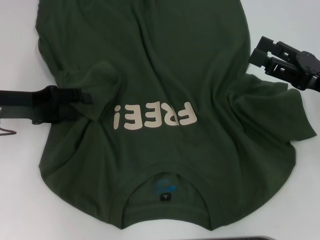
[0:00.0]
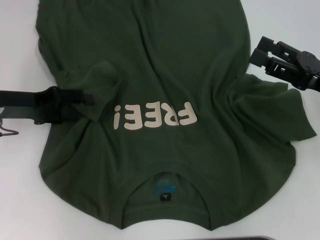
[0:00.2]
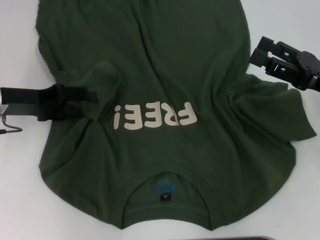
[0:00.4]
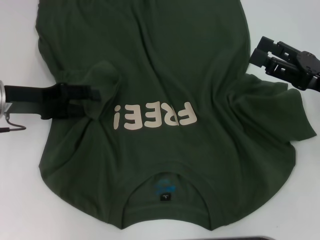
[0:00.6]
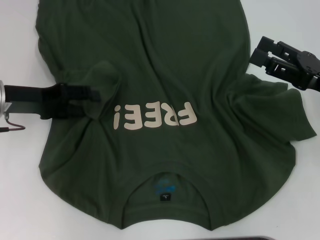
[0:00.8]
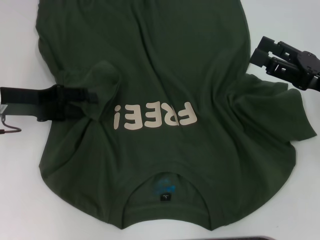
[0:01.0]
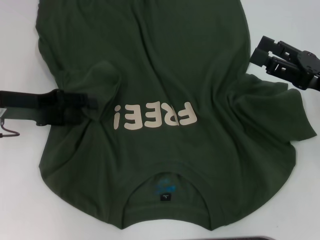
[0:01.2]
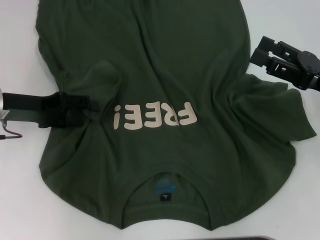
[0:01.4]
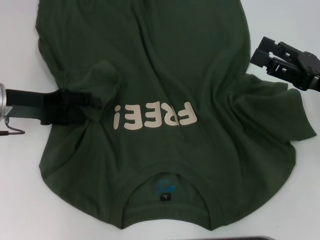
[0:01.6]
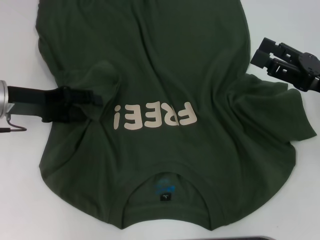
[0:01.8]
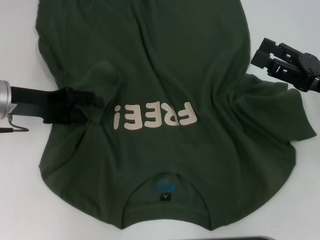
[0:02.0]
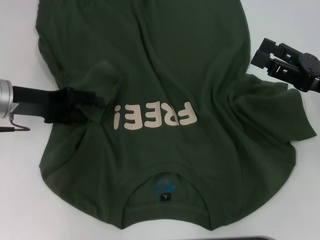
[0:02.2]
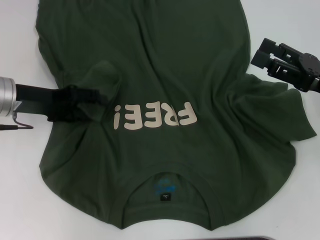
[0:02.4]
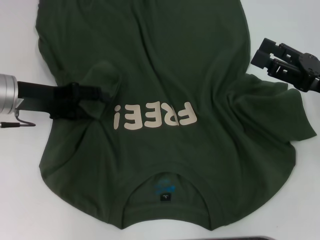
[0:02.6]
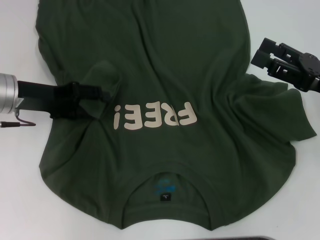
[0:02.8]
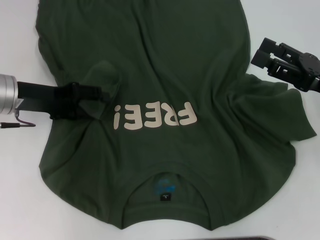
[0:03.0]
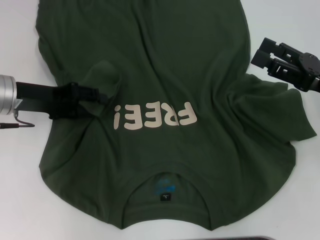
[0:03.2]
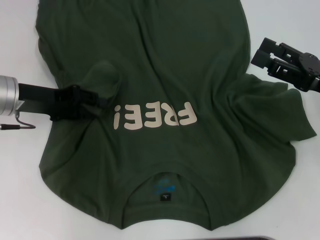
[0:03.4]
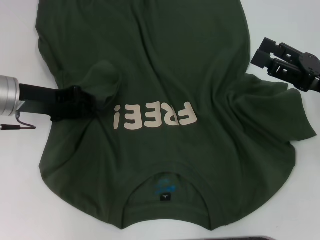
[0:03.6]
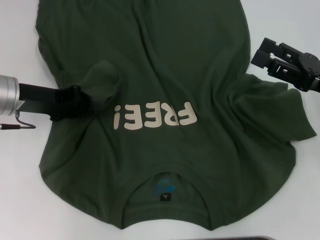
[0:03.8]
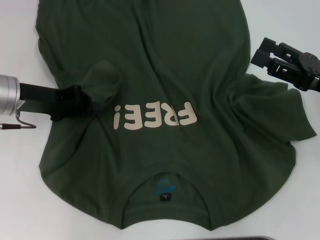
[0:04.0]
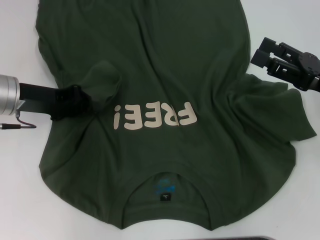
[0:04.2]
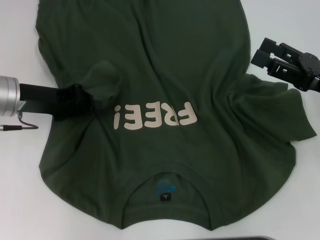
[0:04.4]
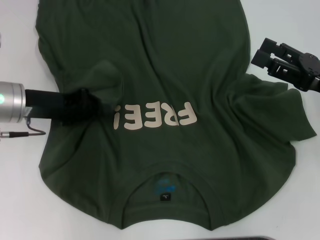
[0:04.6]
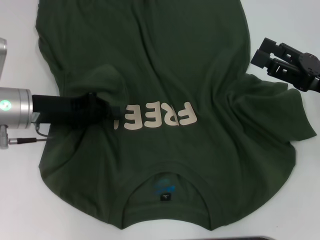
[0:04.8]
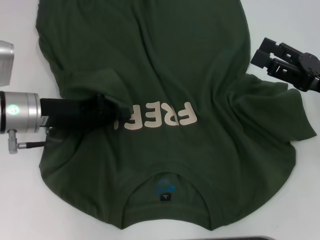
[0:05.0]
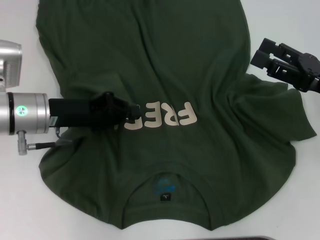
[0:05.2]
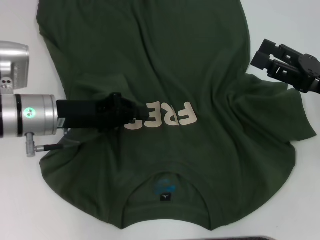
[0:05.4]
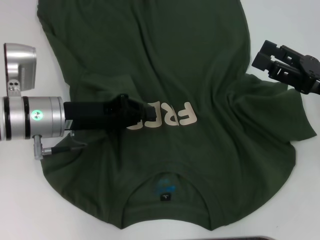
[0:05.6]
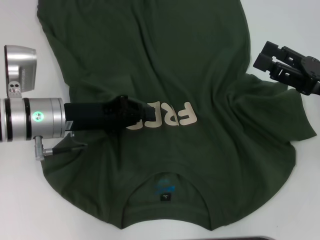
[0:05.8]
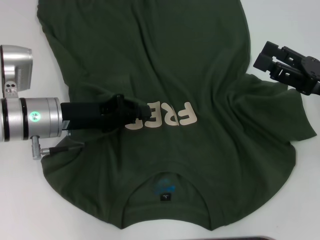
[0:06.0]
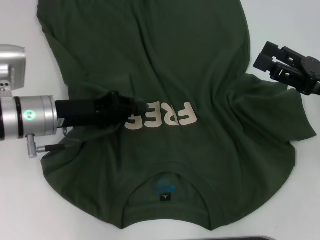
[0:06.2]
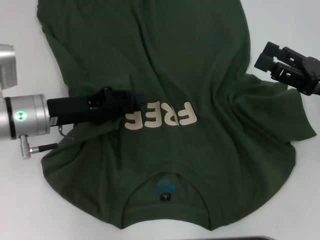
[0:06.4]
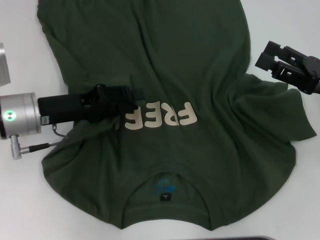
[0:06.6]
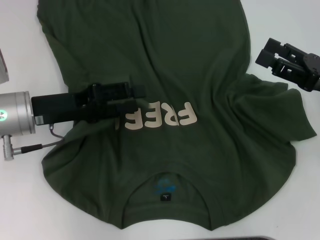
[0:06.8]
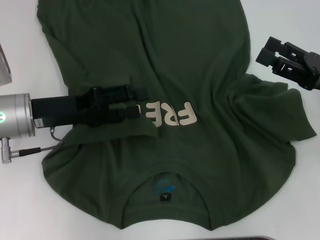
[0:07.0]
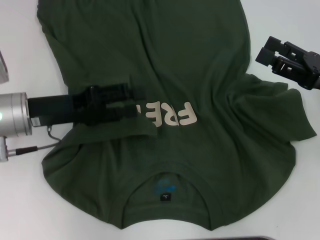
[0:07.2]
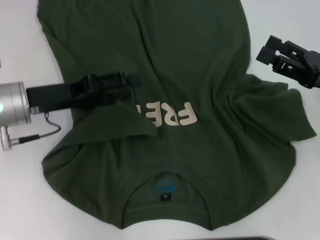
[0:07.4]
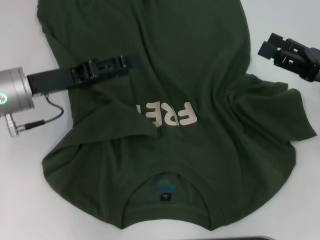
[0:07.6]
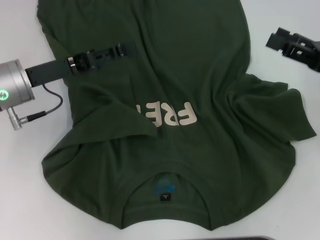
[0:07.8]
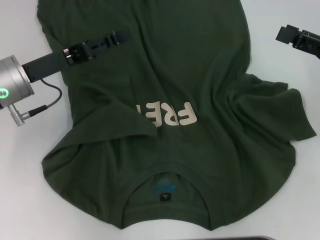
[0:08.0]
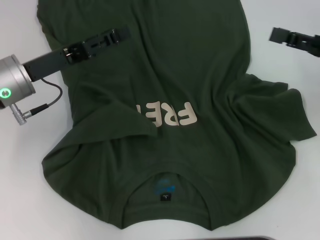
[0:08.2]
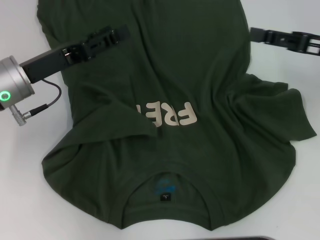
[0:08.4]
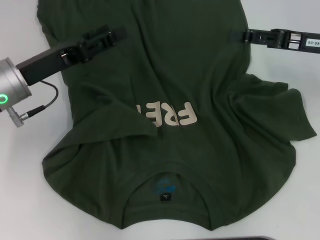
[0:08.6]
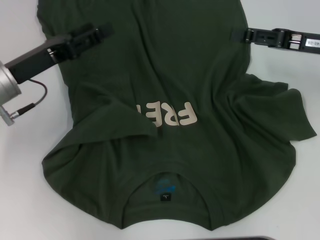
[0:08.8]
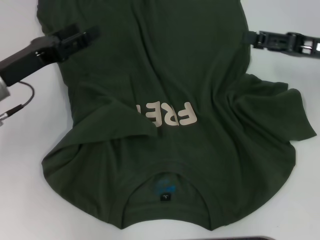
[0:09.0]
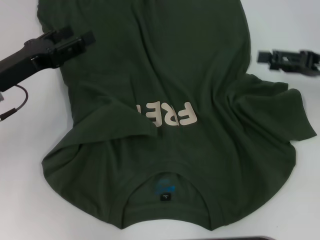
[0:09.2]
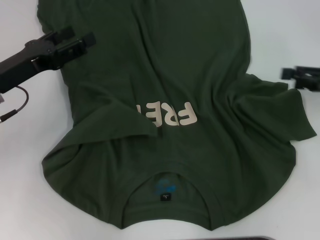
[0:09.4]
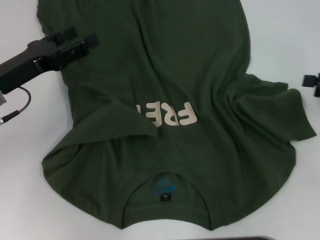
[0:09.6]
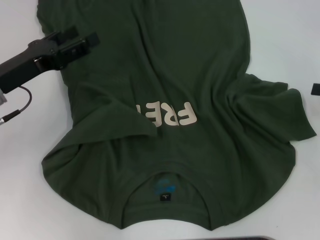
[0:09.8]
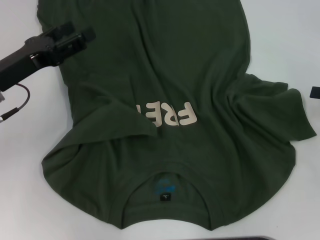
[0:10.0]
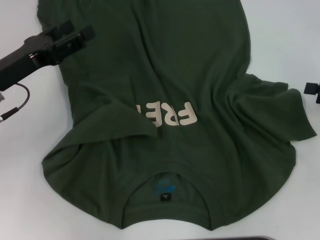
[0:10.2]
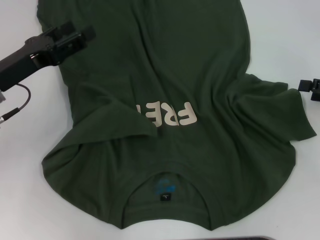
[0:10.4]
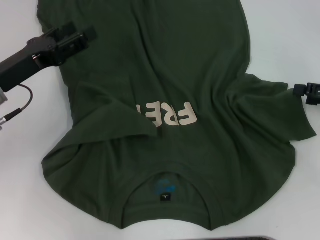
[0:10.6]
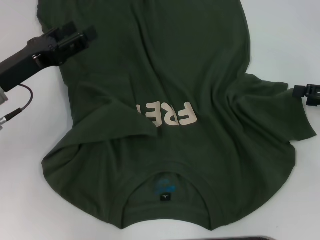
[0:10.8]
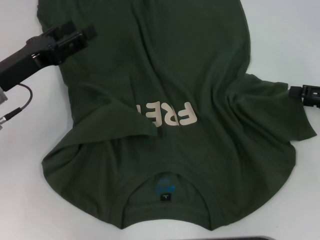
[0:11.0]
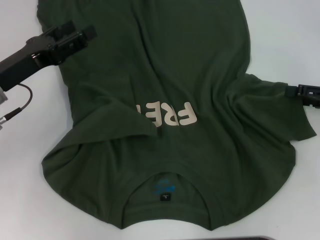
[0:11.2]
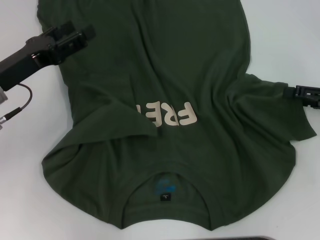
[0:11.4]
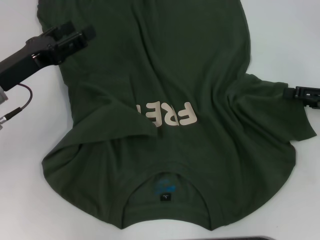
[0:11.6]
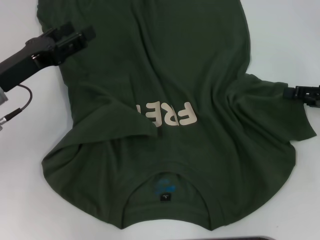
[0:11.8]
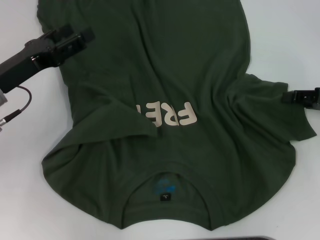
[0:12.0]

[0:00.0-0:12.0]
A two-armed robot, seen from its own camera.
Step, 0:00.0 to 0:07.4: Fold the bottom left sleeve with your left hand.
0:00.0 to 0:03.0: The grippers stay close to where they were, moving slightly.
0:03.0 to 0:04.4: The left gripper closes.
0:04.4 to 0:06.0: The left gripper is displaced to the right by roughly 5 cm.
0:06.0 to 0:07.6: The left gripper opens its fingers.
0:07.6 to 0:09.0: The right gripper heads forward, covering approximately 5 cm.
0:09.0 to 0:10.4: The right gripper is displaced to the right and backward by about 10 cm.
0:10.4 to 0:12.0: The right gripper closes up.

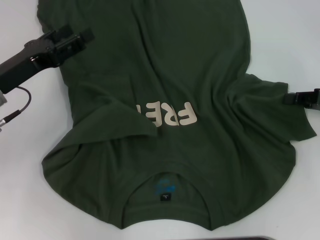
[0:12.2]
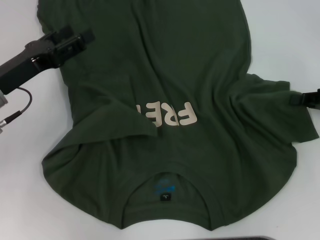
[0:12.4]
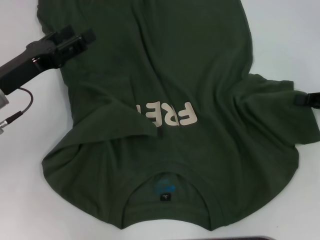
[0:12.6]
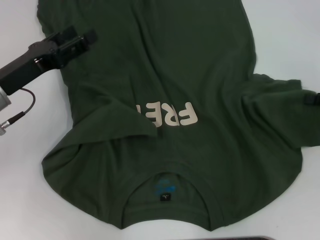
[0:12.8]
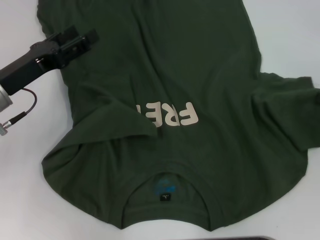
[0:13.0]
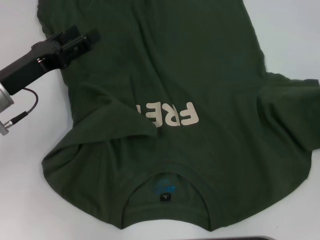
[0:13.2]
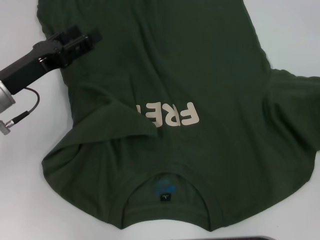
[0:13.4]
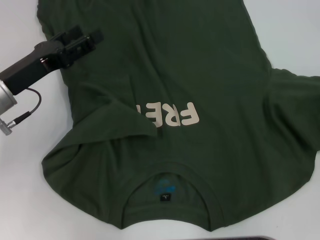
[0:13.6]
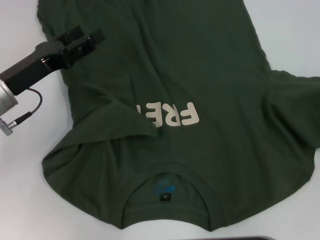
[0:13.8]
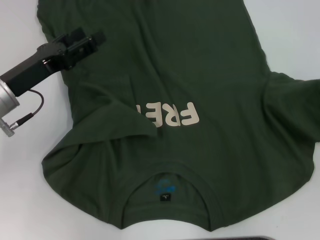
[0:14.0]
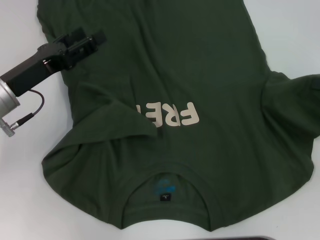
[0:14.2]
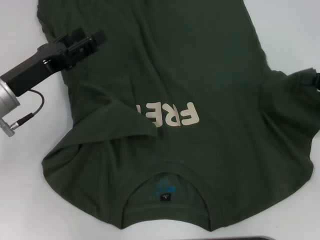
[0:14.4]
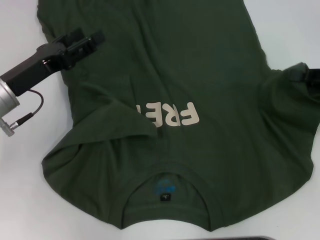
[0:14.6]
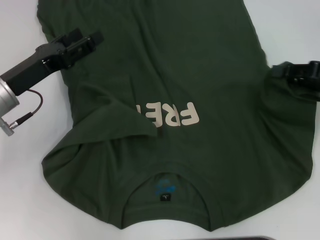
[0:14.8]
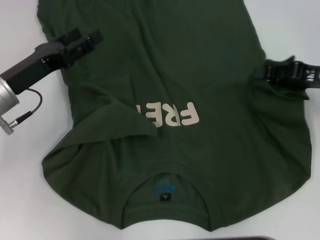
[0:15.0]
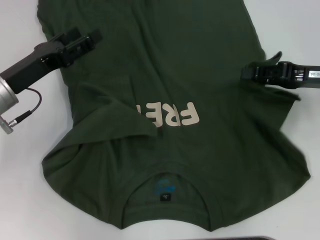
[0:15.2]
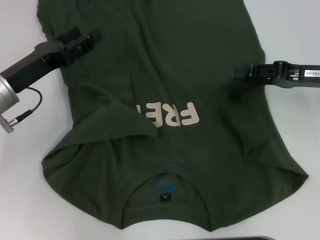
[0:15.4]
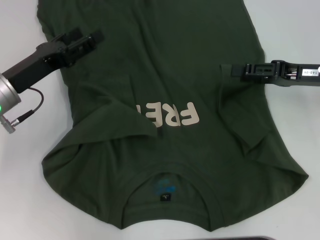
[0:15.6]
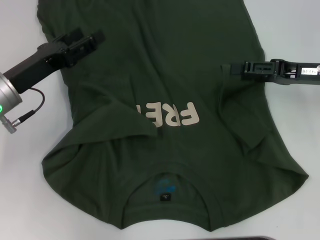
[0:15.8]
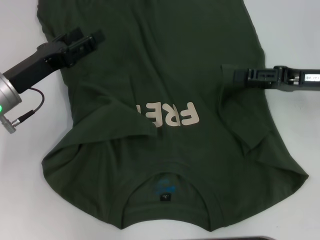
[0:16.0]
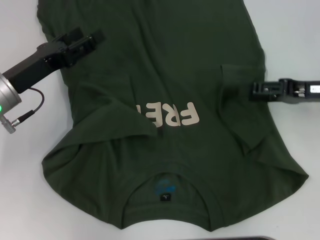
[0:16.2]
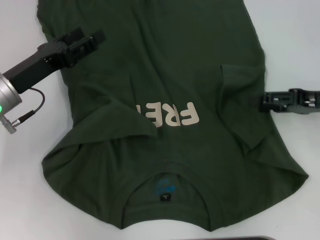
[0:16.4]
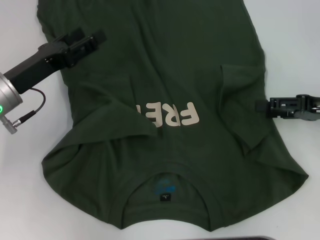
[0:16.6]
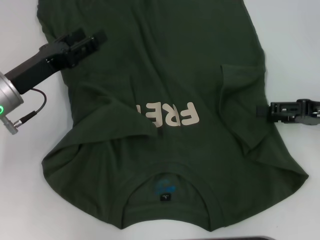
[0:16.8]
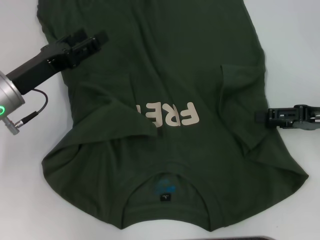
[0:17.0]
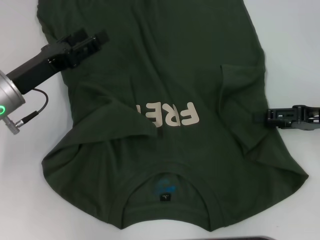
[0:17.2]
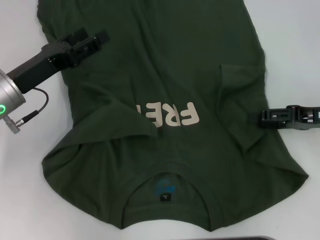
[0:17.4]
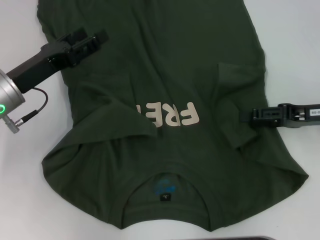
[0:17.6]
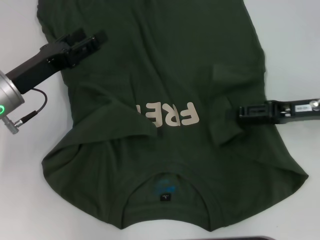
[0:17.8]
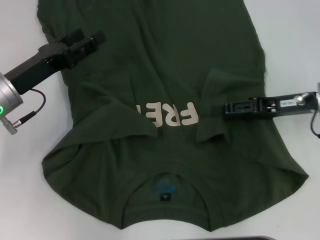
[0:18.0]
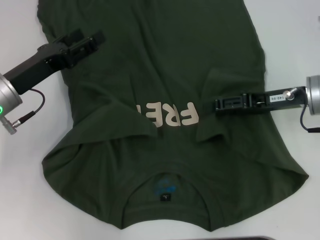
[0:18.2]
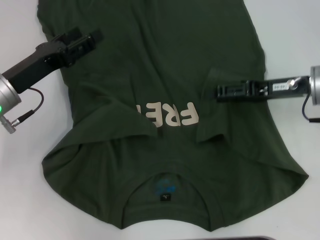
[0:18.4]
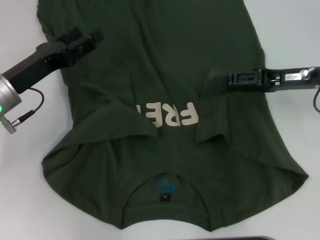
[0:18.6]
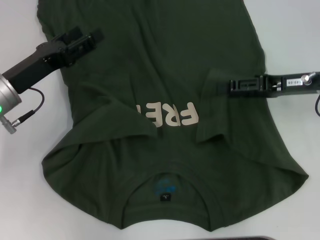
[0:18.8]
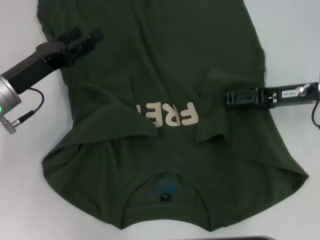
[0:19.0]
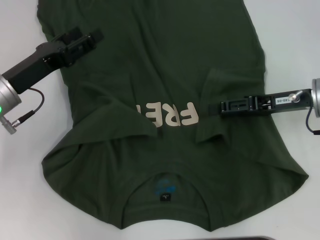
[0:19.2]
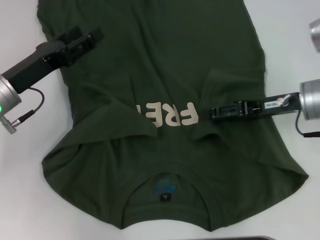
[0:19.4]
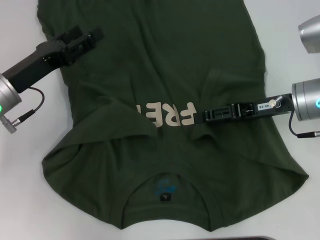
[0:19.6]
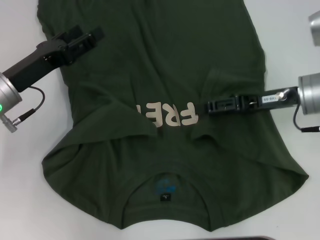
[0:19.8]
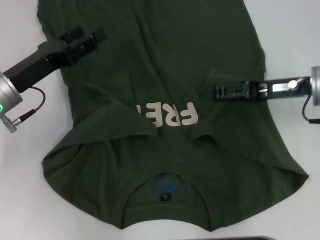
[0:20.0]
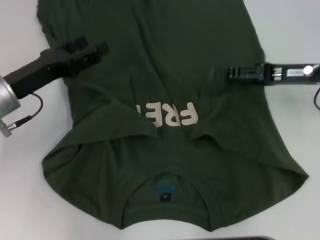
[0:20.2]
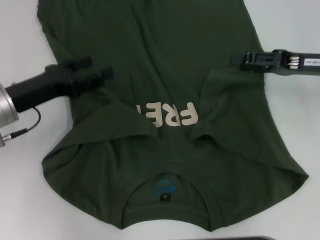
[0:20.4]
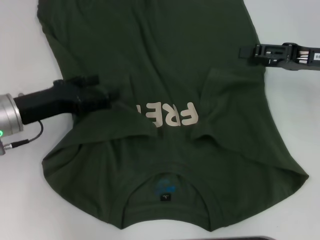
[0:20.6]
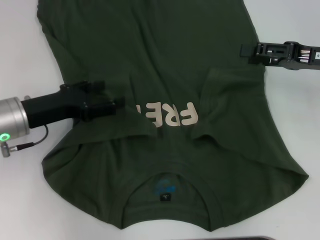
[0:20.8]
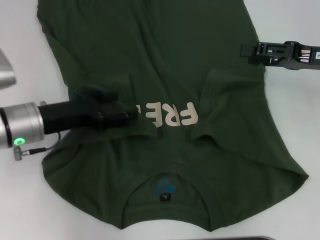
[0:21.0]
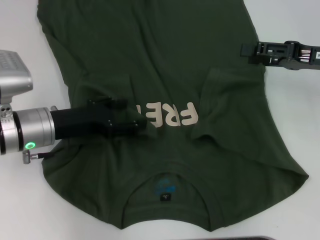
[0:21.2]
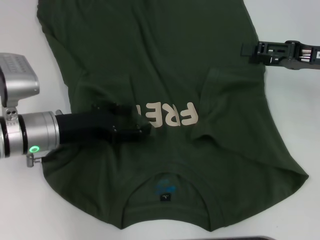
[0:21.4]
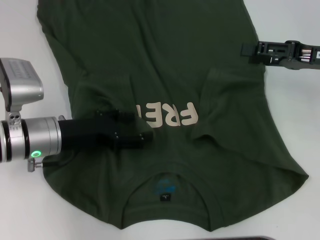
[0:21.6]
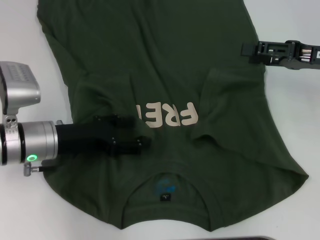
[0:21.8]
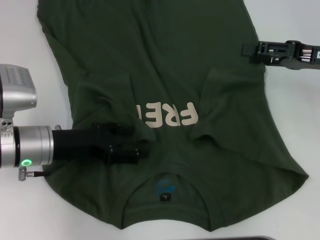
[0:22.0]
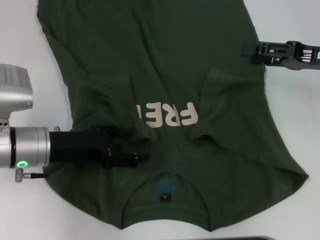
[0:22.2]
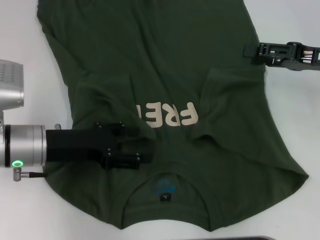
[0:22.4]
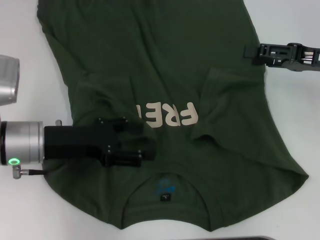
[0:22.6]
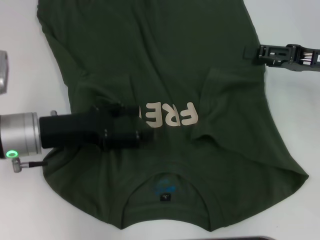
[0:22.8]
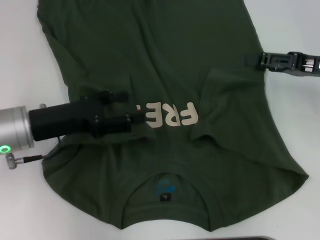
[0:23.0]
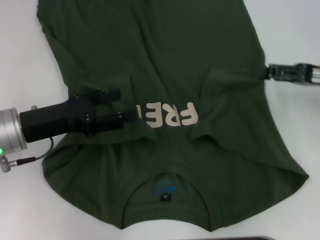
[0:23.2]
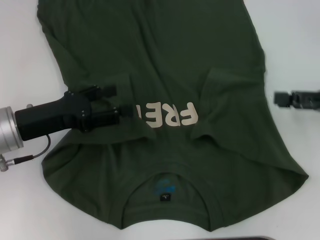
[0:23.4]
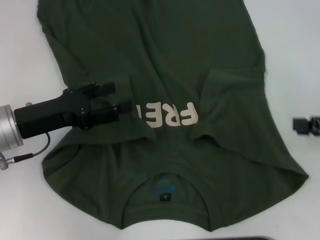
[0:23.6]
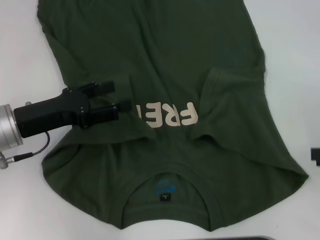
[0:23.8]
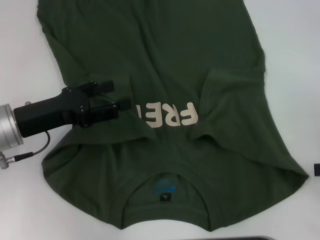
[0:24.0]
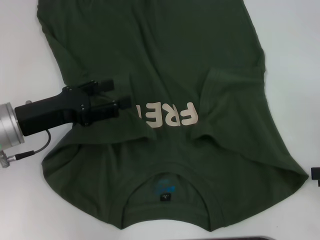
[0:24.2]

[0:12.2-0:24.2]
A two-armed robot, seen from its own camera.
Step, 0:12.2 to 0:15.8: Fold the bottom right sleeve with your right hand.
0:12.2 to 0:13.8: The right gripper moves about 5 cm.
0:13.8 to 0:15.2: The right gripper is displaced to the left and forward by roughly 15 cm.
0:15.2 to 0:16.6: The right gripper opens up.
0:16.6 to 0:18.2: The right gripper heads to the left, covering approximately 10 cm.
0:18.2 to 0:19.8: The grippers make only small movements.
0:19.8 to 0:21.2: The right gripper goes about 5 cm to the right.
0:21.2 to 0:22.6: The grippers stay close to where they were, moving slightly.
0:22.6 to 0:24.2: The right gripper shifts some 15 cm backward and to the right.
